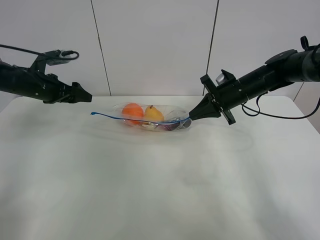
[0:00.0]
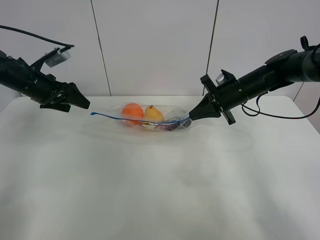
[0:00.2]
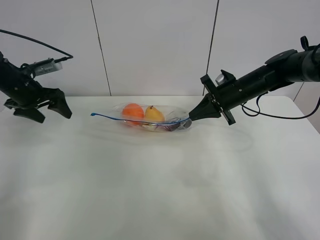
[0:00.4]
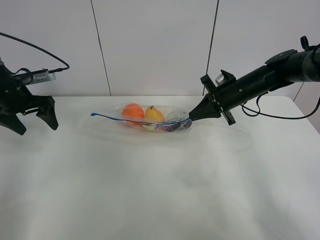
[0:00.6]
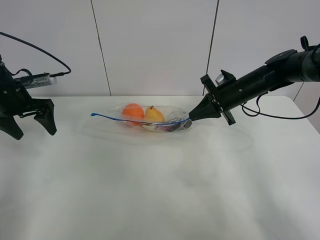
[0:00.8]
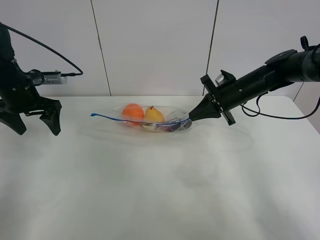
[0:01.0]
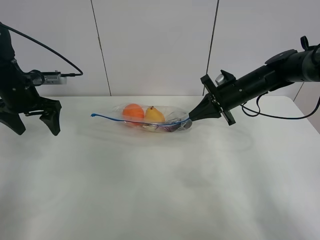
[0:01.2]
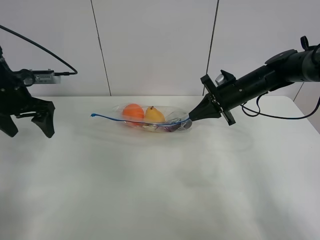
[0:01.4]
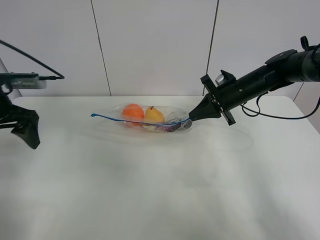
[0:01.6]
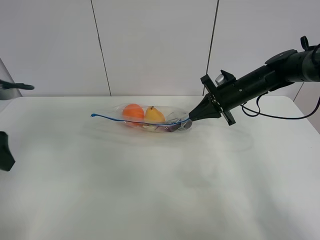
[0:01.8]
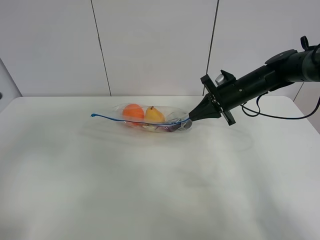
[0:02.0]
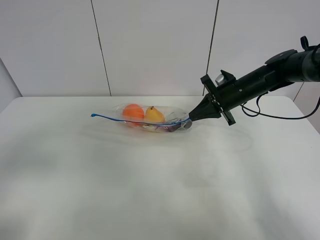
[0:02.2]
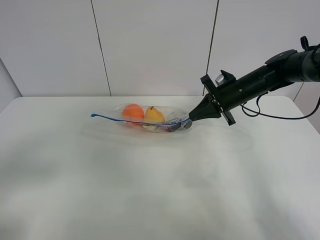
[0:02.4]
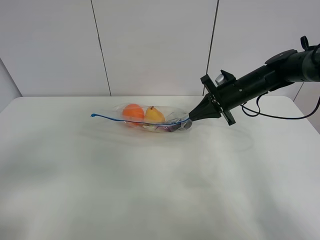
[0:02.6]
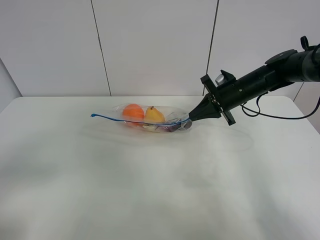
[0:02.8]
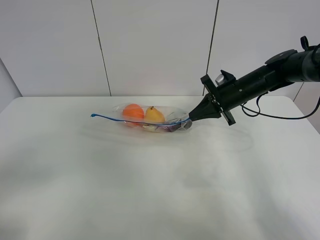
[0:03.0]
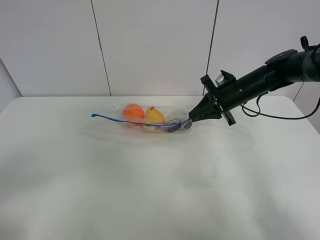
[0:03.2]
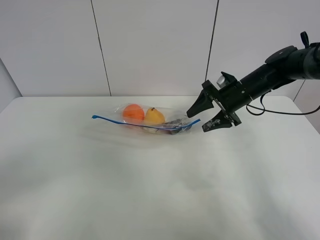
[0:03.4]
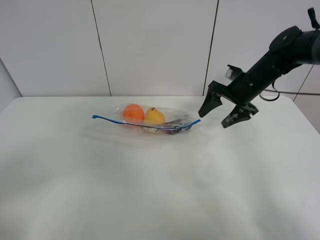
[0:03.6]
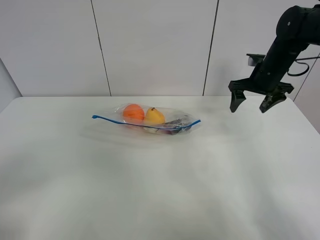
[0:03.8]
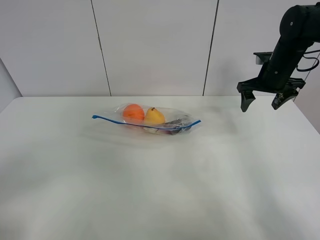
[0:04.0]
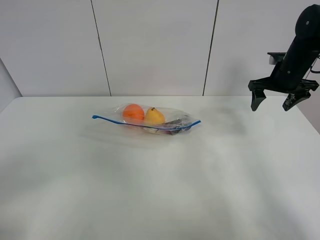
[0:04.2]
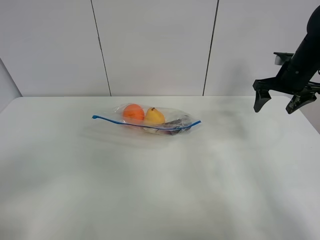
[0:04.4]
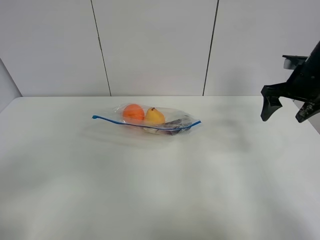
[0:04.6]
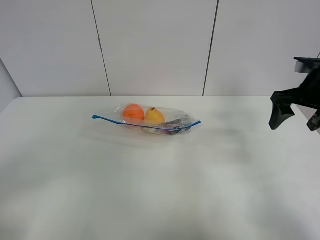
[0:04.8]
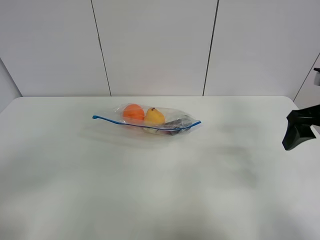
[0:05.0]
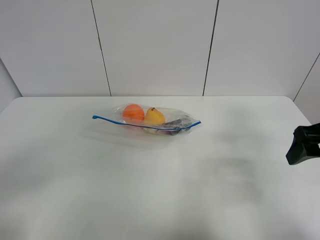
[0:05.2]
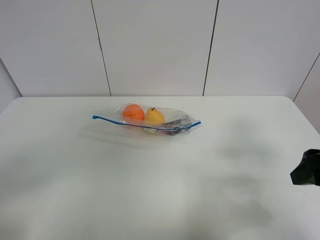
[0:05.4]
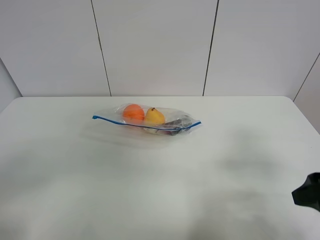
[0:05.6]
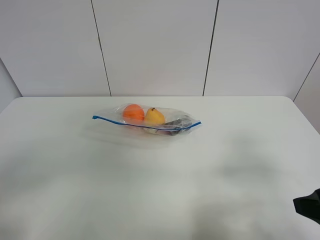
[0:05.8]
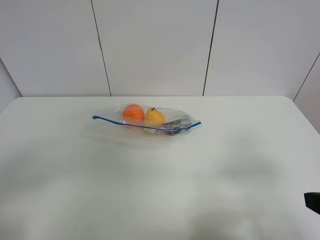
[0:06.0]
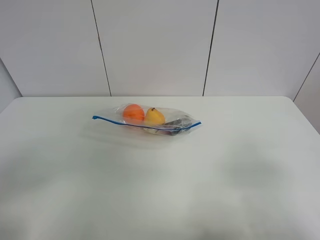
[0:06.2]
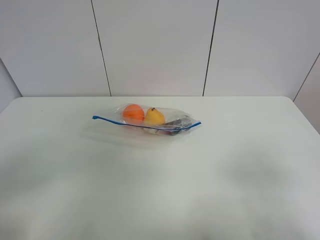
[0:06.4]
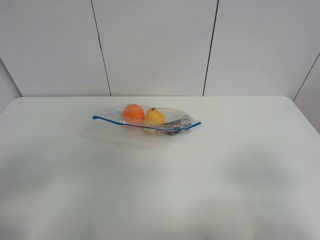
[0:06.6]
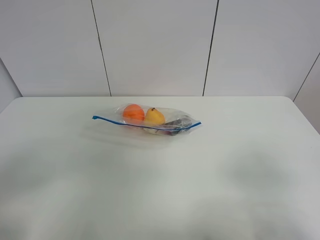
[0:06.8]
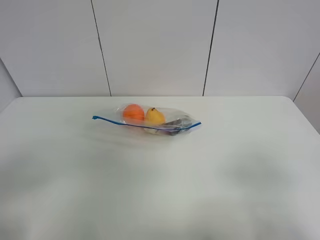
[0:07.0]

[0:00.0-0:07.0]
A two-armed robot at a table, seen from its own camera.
0:00.0 to 0:01.4: The left gripper goes roughly 10 cm backward.
0:01.4 to 0:02.8: The left gripper heads backward, covering about 30 cm.
0:02.8 to 0:04.2: The right gripper goes approximately 15 cm to the right and upward, and opens its fingers.
0:04.2 to 0:05.6: The right gripper shifts roughly 30 cm backward.
0:05.6 to 0:07.0: The right gripper goes some 10 cm backward.

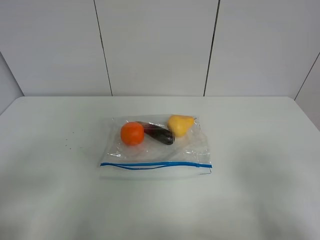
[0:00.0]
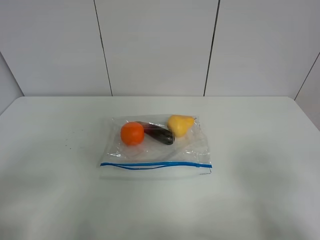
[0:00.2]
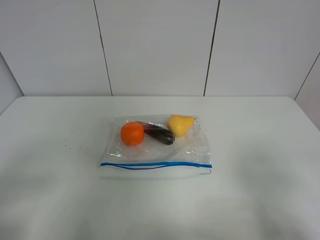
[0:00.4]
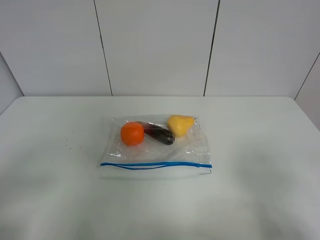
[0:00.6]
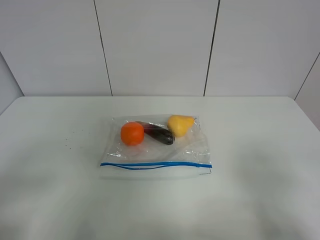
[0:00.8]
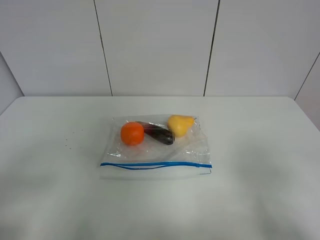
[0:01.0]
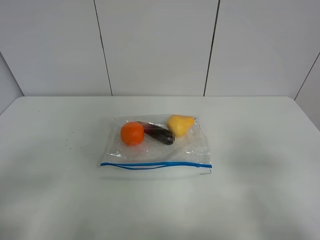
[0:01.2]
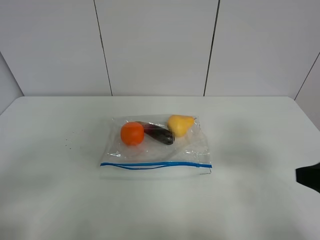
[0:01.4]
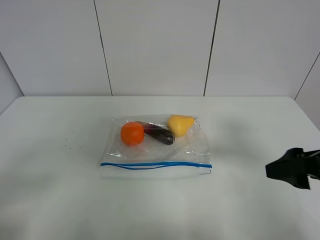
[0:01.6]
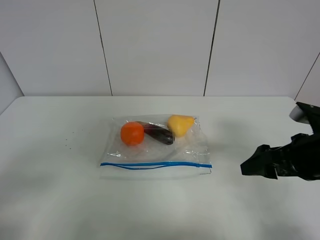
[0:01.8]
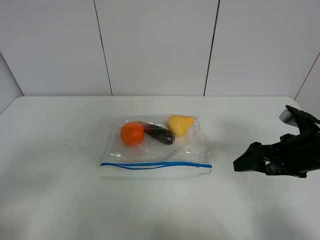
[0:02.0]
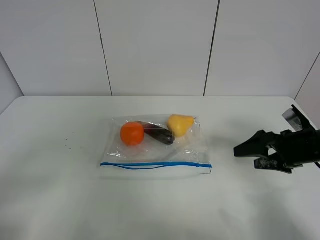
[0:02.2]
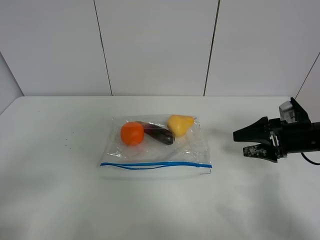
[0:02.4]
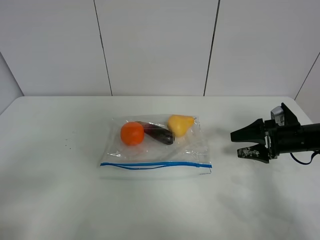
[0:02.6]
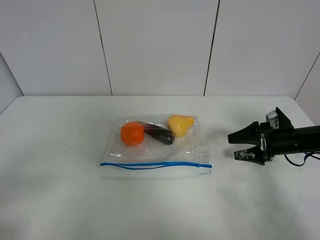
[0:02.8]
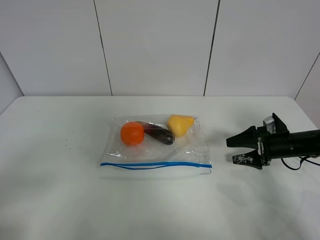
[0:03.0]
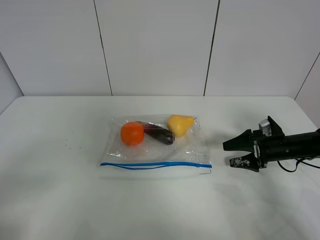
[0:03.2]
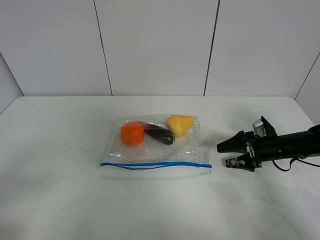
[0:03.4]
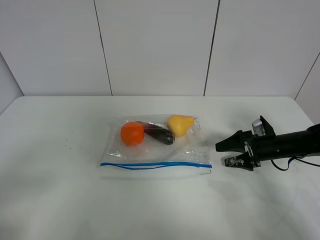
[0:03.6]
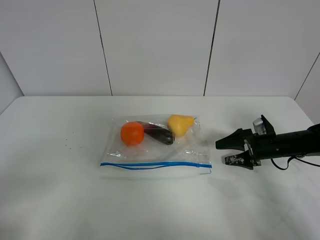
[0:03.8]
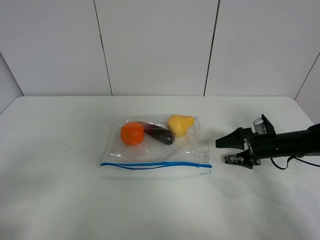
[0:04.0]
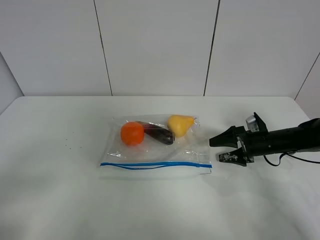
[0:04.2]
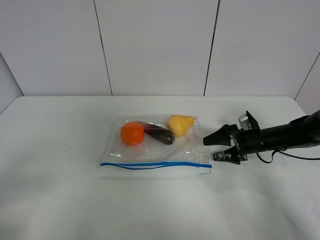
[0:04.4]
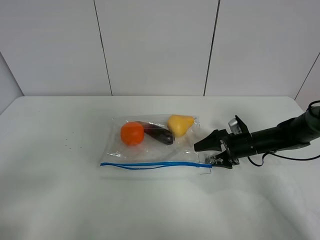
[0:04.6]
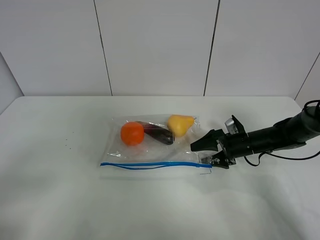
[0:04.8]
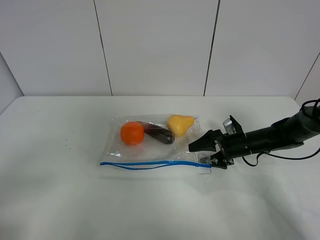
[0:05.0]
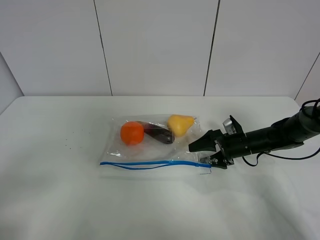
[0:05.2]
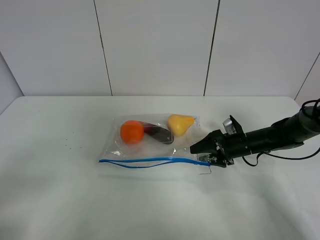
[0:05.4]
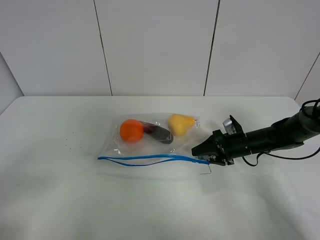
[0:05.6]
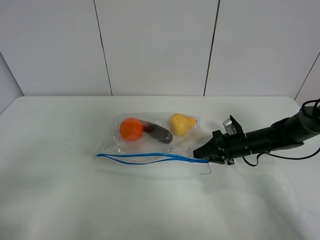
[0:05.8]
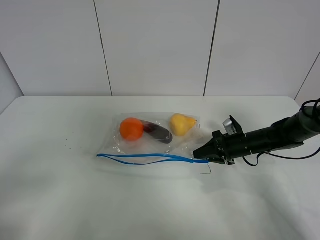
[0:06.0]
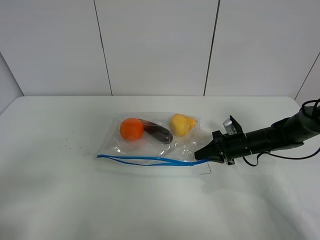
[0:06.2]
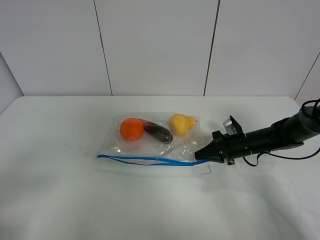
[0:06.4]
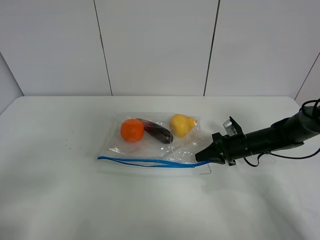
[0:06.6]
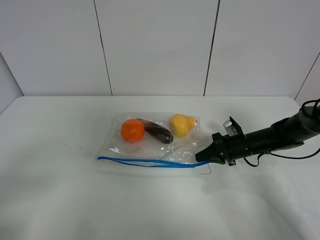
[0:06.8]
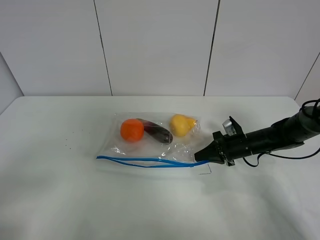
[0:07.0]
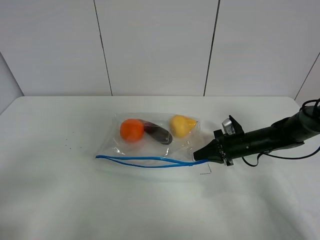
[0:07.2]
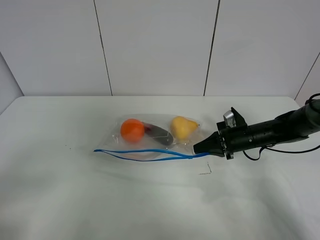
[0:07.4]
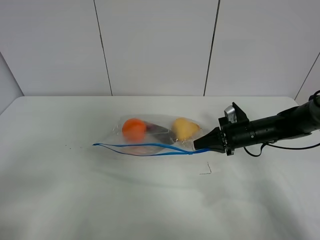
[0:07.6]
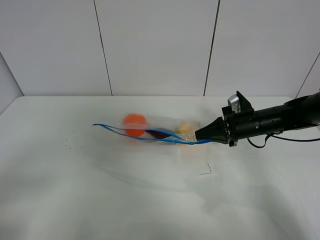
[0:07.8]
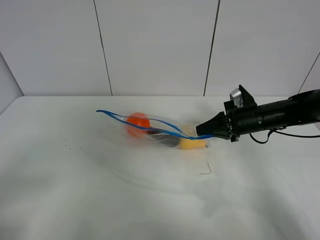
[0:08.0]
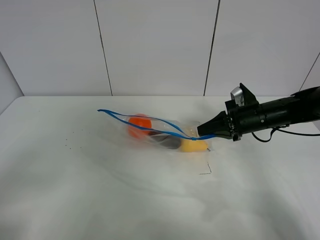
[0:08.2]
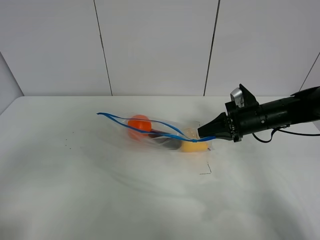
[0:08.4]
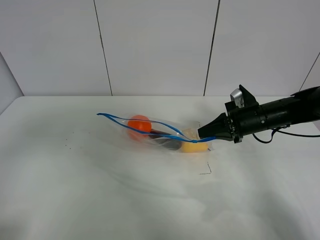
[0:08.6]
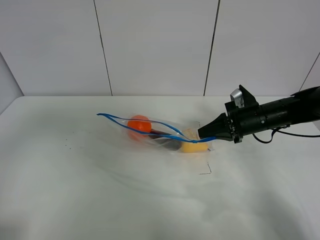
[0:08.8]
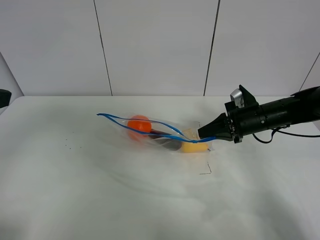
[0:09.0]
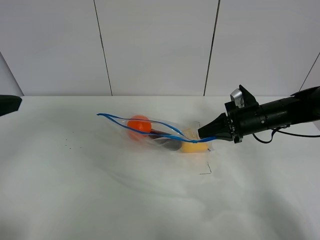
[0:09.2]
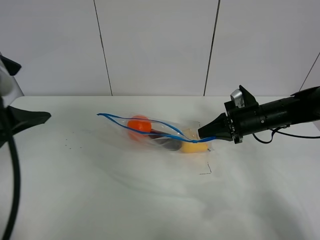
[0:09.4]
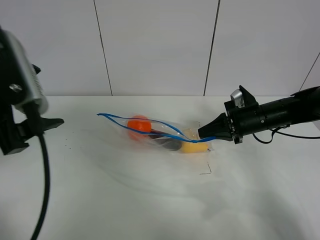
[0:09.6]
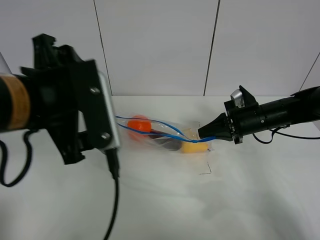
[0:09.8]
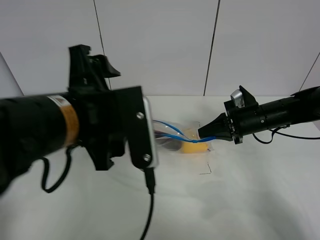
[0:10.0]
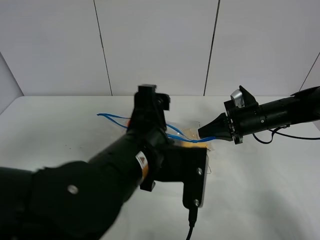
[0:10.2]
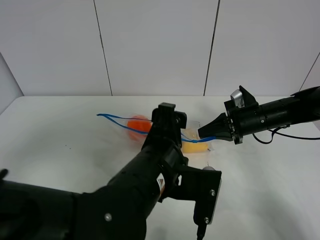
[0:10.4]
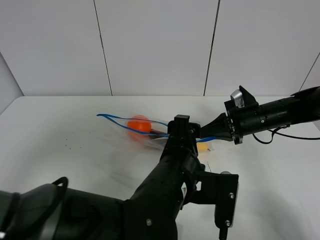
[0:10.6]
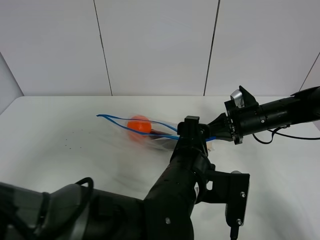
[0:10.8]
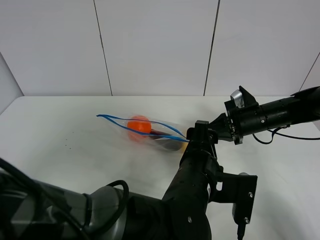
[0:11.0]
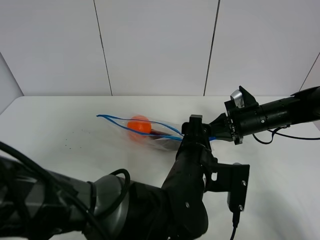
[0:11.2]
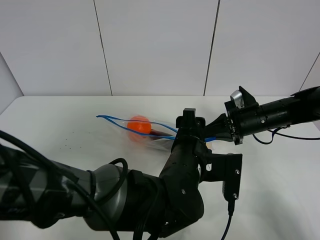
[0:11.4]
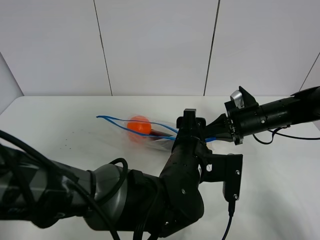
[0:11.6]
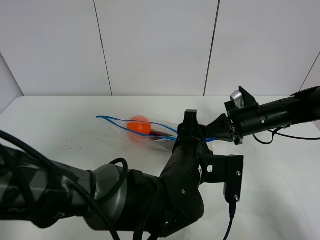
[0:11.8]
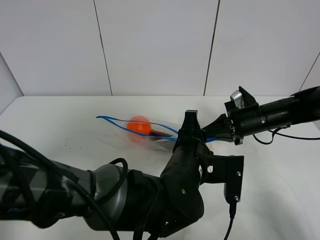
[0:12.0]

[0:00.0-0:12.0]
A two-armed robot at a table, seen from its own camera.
Step, 0:00.0 to 0:06.2: Grasp the fruit bag with right gripper.
Step, 0:06.4 to 0:08.0: Lift the fruit bag with your right gripper.
0:00.0 to 0:01.6: The right gripper travels forward by roughly 15 cm.
0:01.6 to 0:03.0: The right gripper goes about 25 cm downward and forward.
0:03.0 to 0:04.4: The right gripper is displaced to the left by some 5 cm.
0:04.4 to 0:06.0: The right gripper closes up.
0:06.0 to 0:07.6: The right gripper travels upward by about 5 cm.
0:07.6 to 0:09.0: The left gripper moves forward and upward, about 15 cm.
0:09.0 to 0:10.4: The left gripper goes approximately 35 cm to the right and downward.
0:10.4 to 0:12.0: The left gripper heads to the right, covering roughly 5 cm, and closes its fingers.

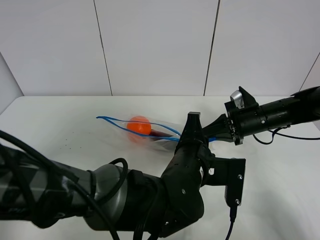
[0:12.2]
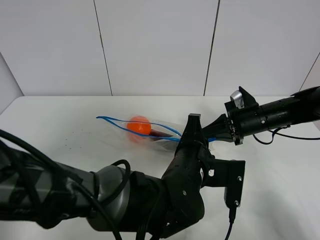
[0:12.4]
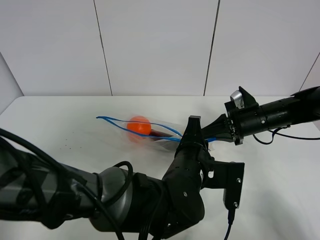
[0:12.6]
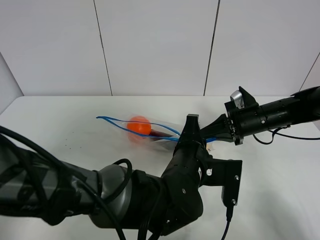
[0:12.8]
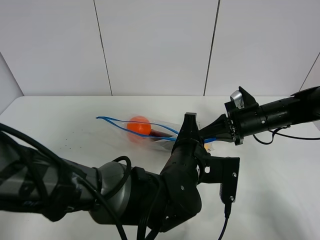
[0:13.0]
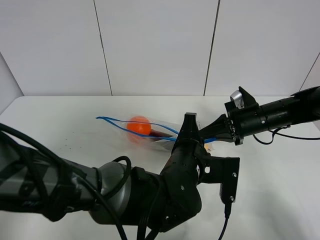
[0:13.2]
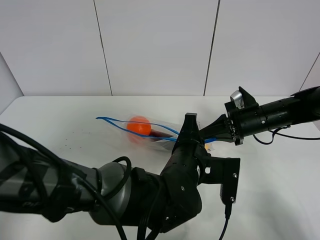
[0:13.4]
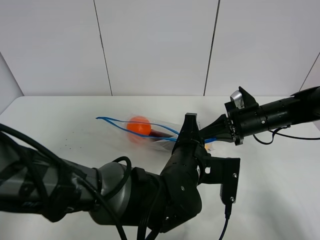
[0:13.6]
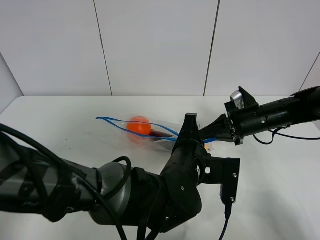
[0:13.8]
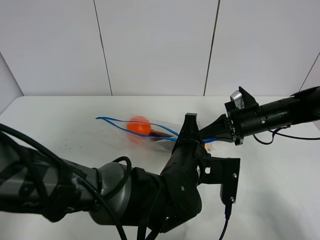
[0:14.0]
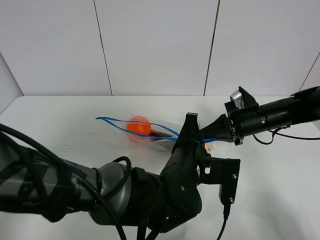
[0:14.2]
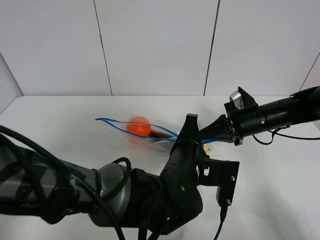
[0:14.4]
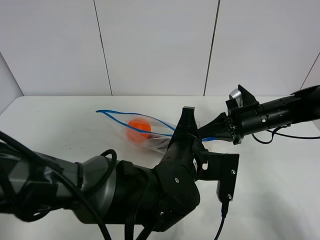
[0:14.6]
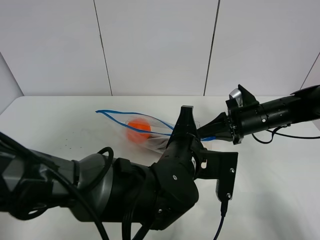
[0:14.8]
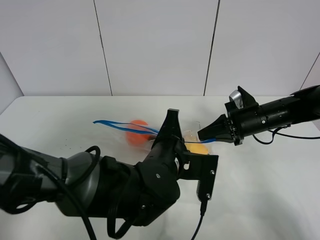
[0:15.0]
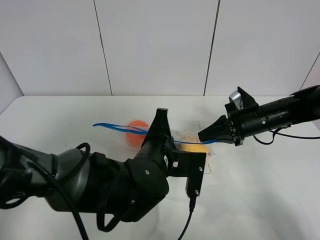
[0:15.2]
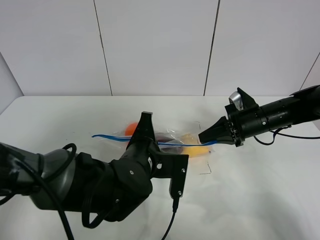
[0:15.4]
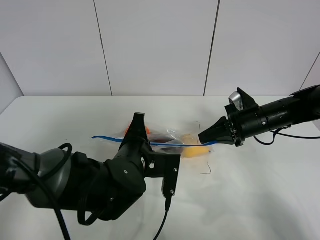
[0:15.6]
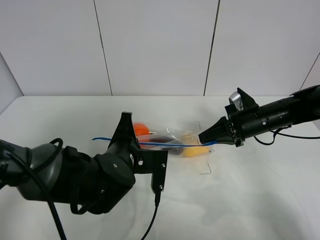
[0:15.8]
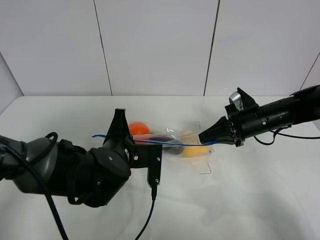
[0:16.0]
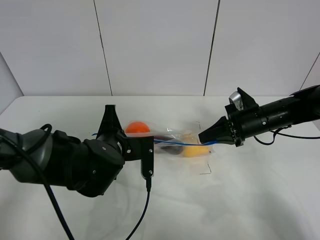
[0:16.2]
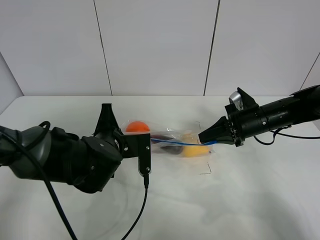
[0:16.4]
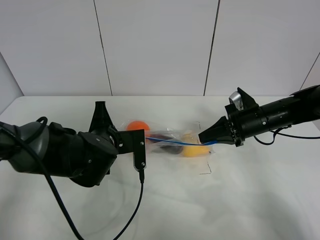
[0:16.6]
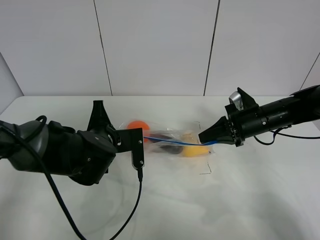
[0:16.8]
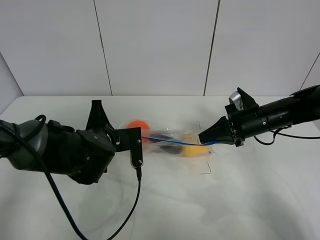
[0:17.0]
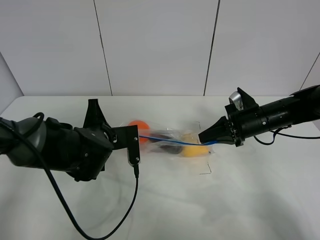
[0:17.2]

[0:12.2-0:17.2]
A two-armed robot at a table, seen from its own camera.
0:12.2 to 0:13.8: The two grippers keep their place.
0:13.8 to 0:15.6: The left gripper goes some 10 cm to the left.
0:15.6 to 0:17.2: The left gripper is displaced to the left and forward by about 10 cm.
